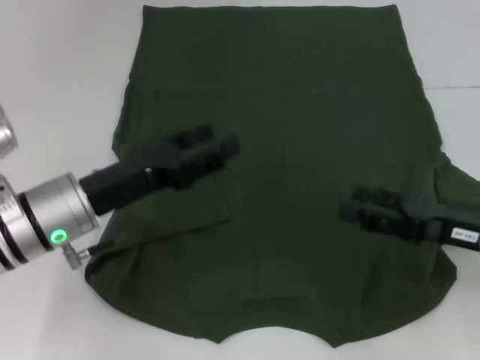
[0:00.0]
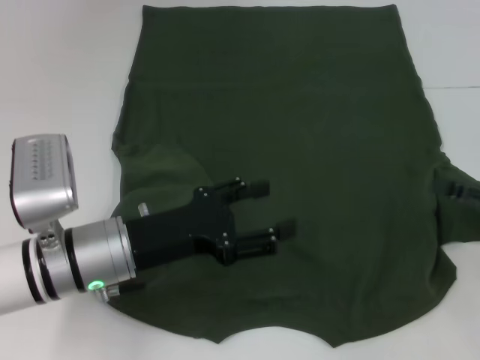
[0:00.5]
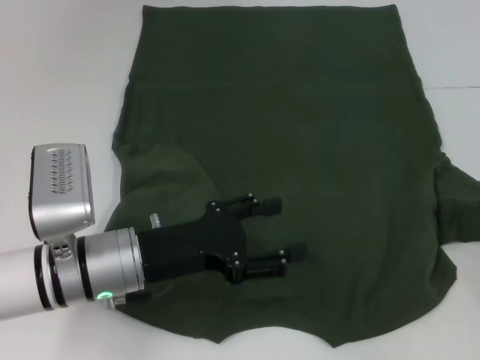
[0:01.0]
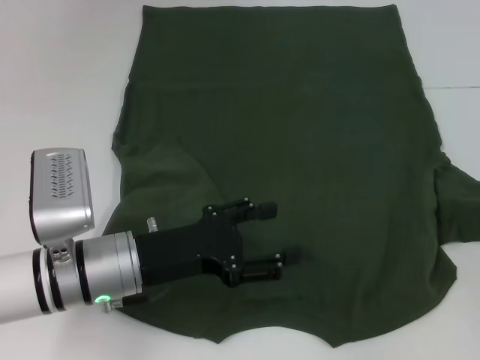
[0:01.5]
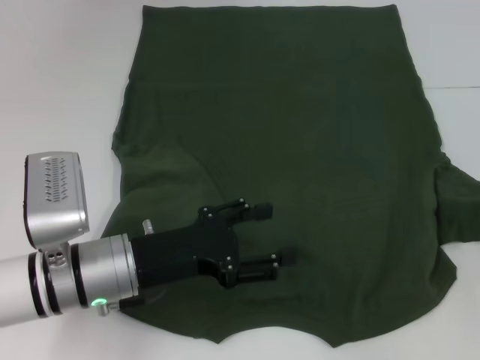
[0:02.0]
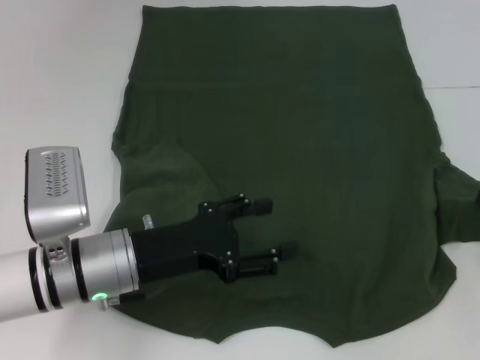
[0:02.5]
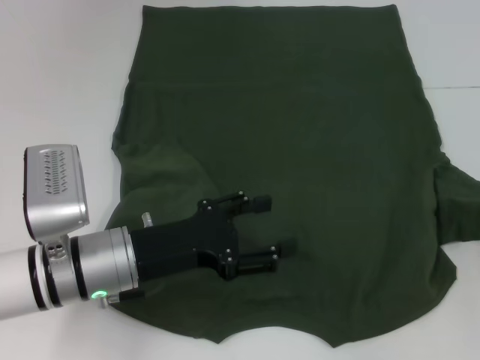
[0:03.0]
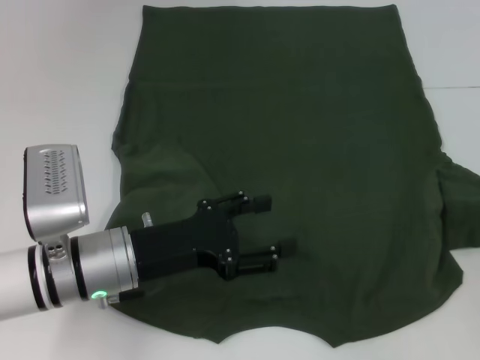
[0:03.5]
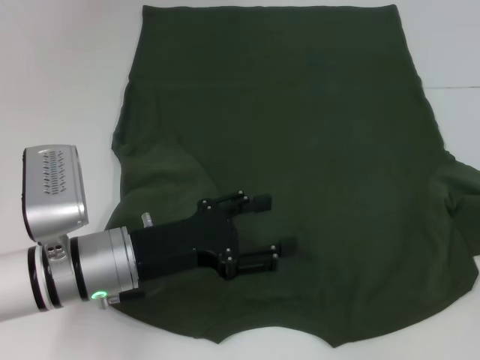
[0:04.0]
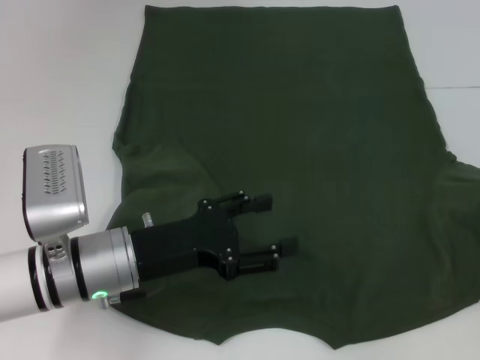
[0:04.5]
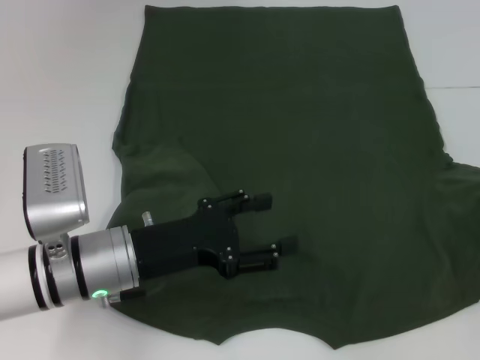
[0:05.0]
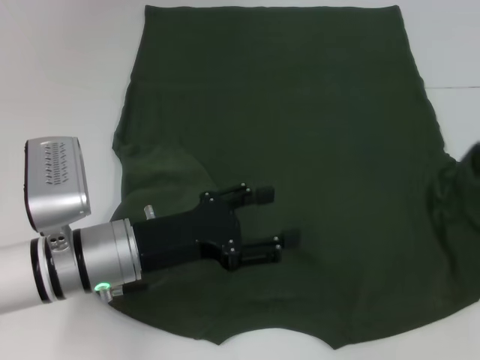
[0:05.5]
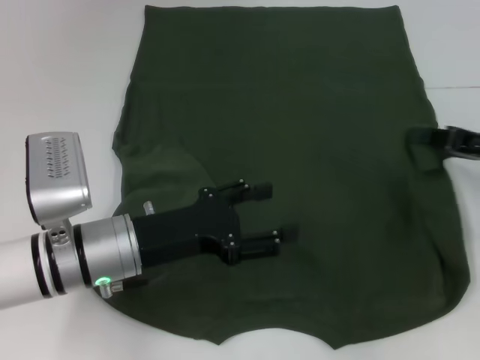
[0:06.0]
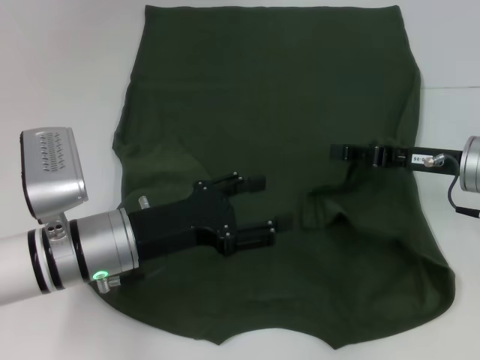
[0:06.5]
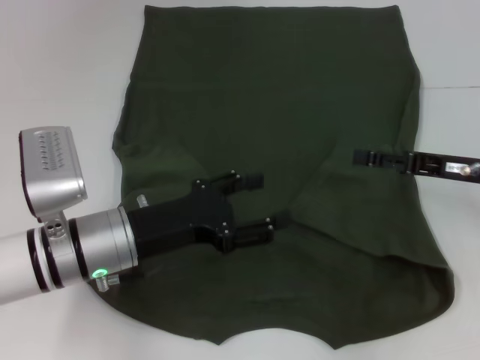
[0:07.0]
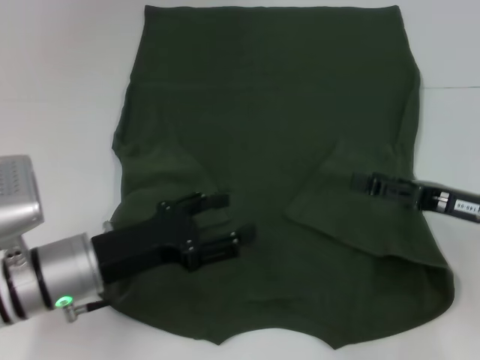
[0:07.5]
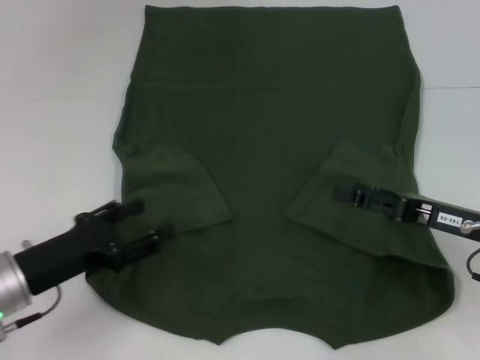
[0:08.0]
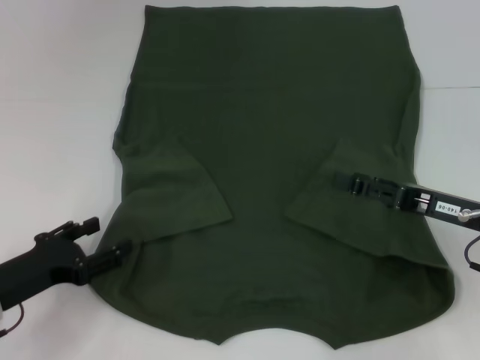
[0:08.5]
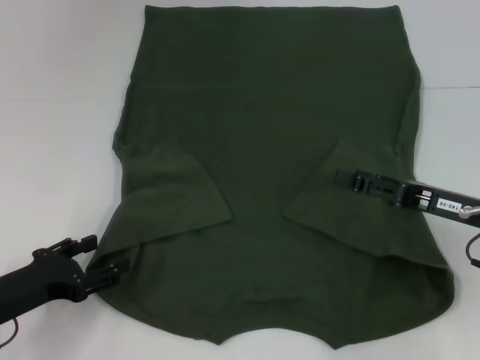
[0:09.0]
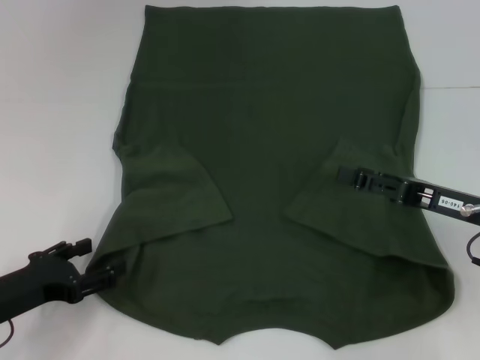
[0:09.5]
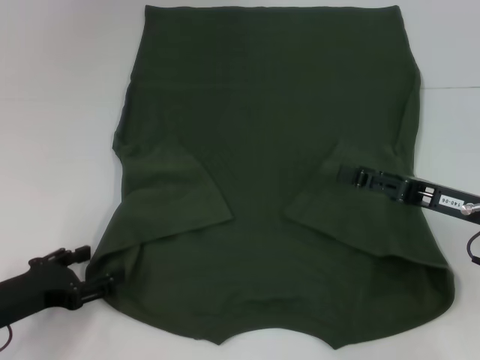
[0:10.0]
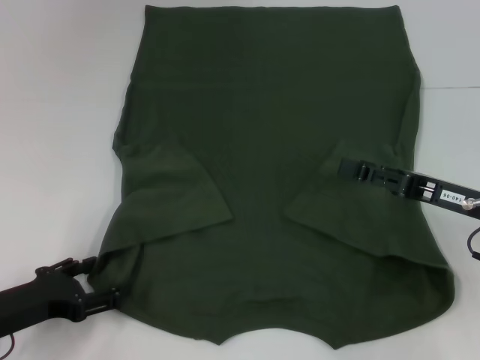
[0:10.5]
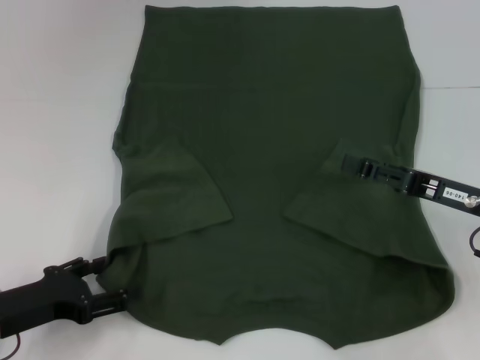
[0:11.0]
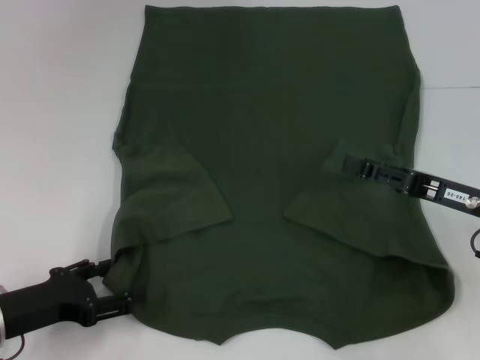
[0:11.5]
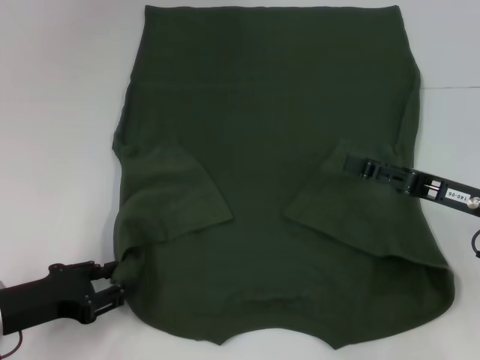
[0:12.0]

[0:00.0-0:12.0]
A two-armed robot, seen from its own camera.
Step, 0:00.0 to 0:06.5: Fold the bottom right sleeve with your right hand.
0:00.0 to 0:02.0: The right gripper shifts approximately 15 cm to the right. Meanwhile the left gripper changes place by roughly 5 cm.
0:02.0 to 0:04.0: The right gripper closes.
0:04.0 to 0:06.0: The right gripper shifts approximately 15 cm to the left and forward.
0:06.0 to 0:08.0: The left gripper travels to the left by approximately 10 cm. Meanwhile the right gripper moves backward, roughly 5 cm, and opens up.
0:08.0 to 0:12.0: There are only small adjustments of the grippers.

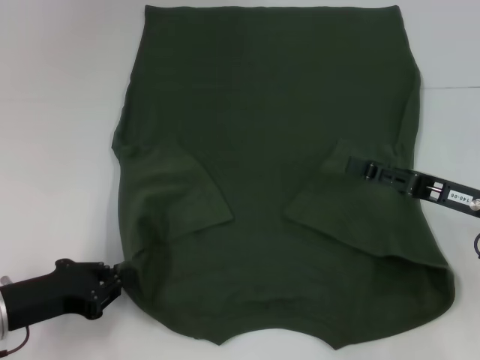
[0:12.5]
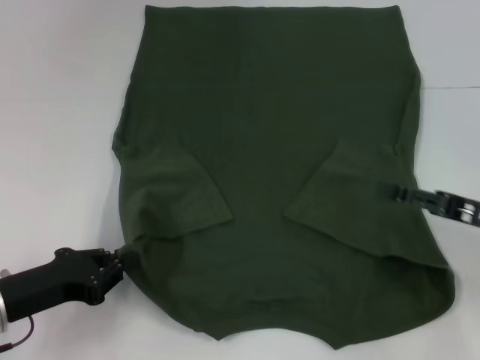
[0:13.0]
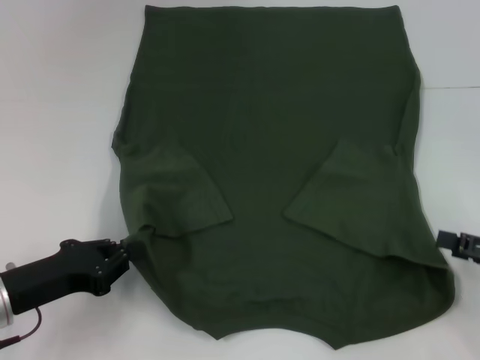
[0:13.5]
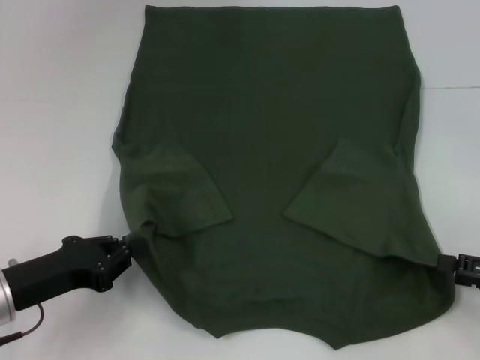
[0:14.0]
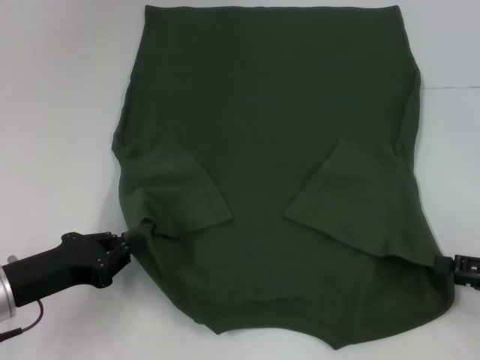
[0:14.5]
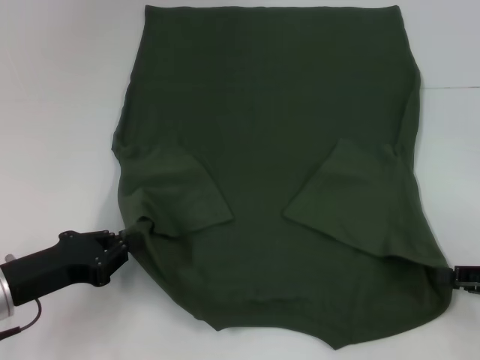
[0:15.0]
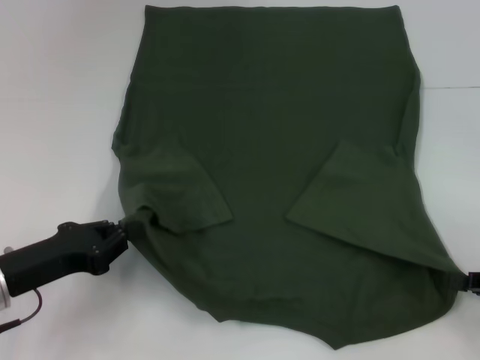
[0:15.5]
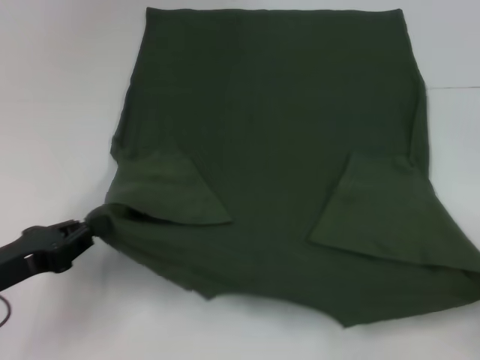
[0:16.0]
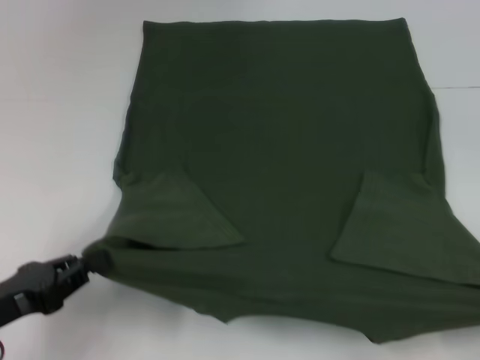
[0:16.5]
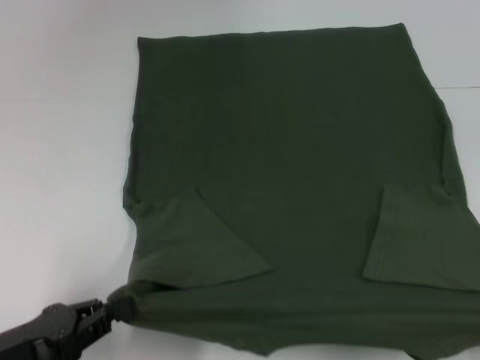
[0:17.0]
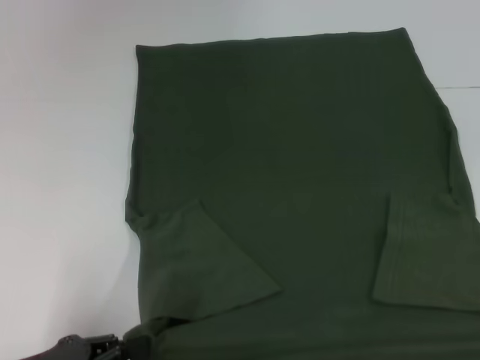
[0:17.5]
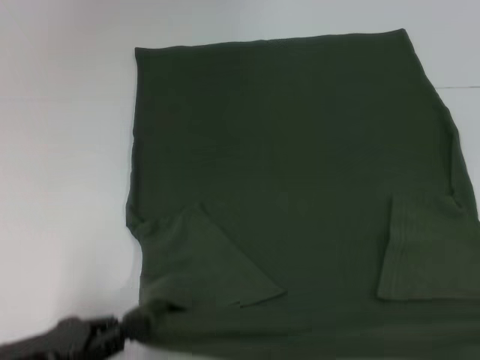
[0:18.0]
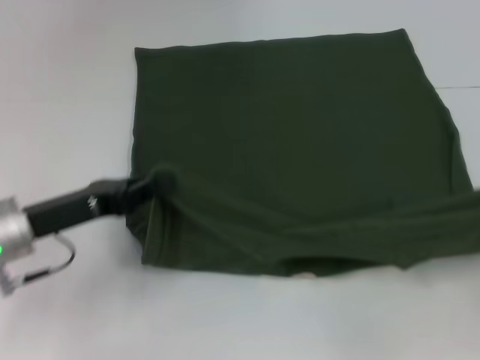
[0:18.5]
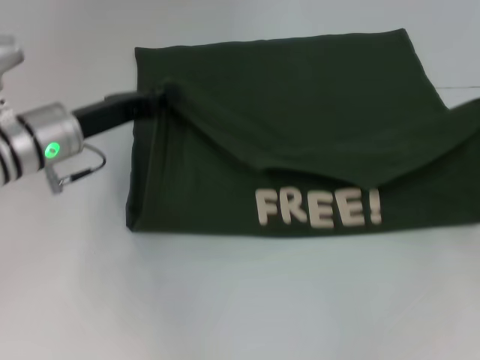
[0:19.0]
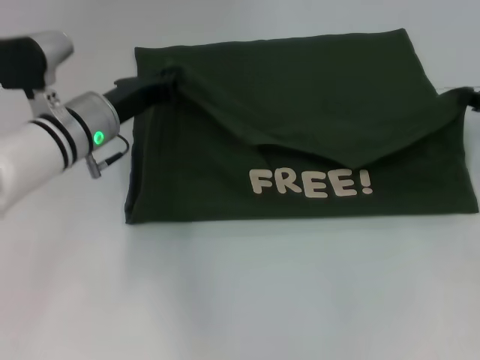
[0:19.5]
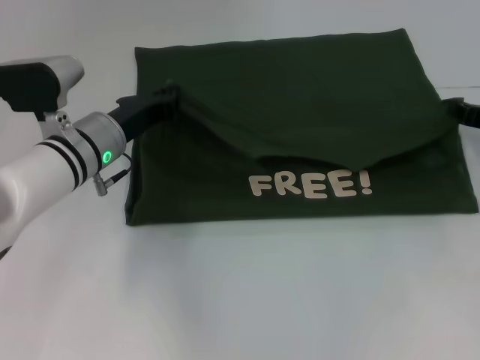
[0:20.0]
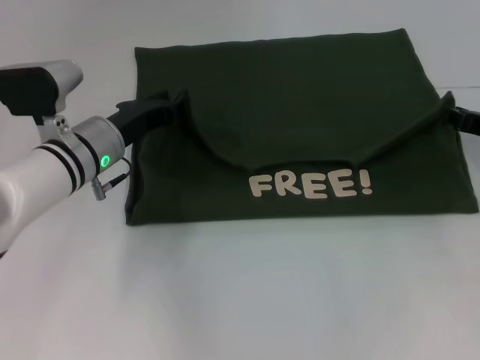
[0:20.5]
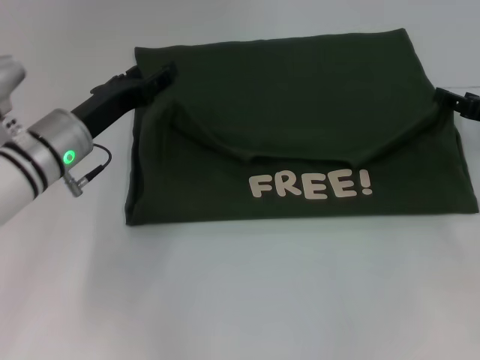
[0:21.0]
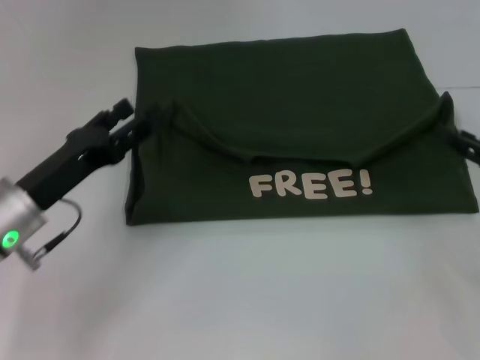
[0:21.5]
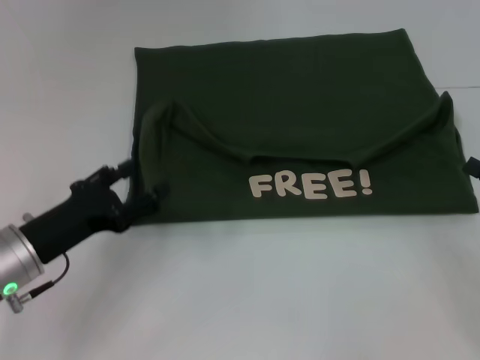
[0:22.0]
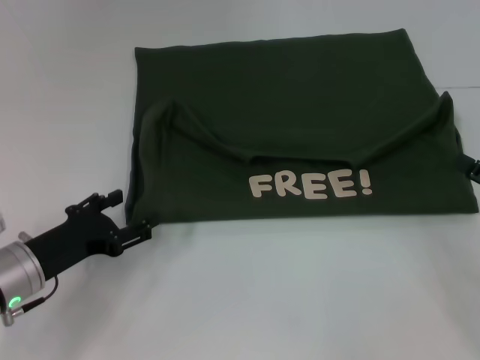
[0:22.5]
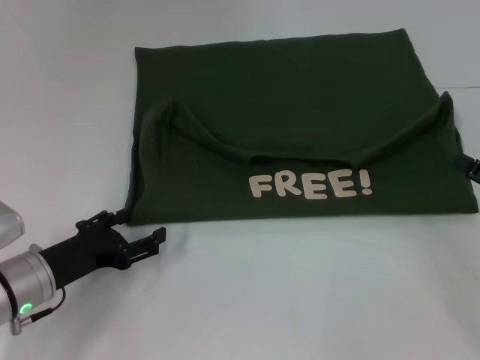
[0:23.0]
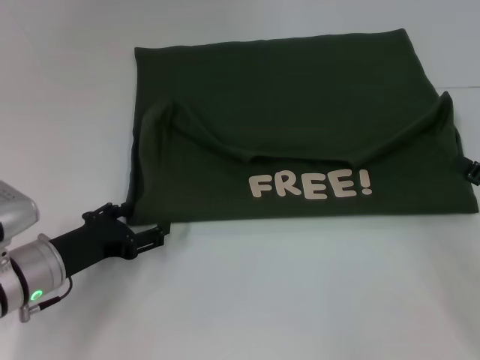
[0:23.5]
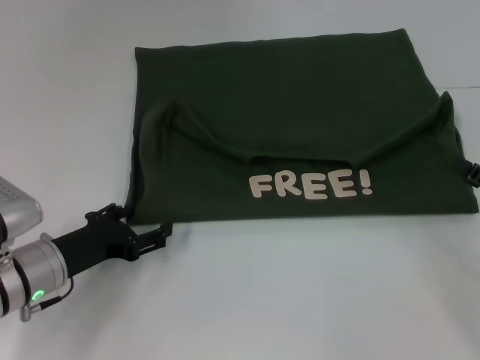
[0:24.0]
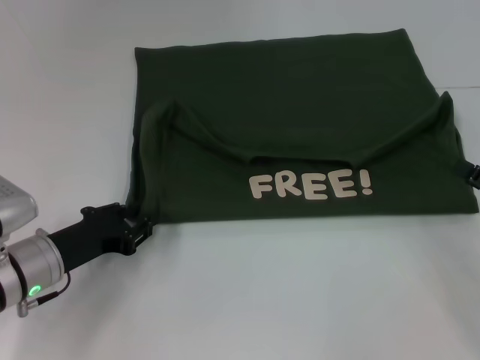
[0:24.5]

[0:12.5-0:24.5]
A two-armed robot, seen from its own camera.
Step, 0:12.5 to 0:15.0: Grab the bottom right corner with your right hand.
Step, 0:15.5 to 0:20.5: Fold the clothes with your left hand.
Step, 0:15.5 to 0:20.5: Fold the clothes with your right hand.
0:12.5 to 0:14.5: The right gripper heads to the right and backward, covering about 10 cm.
0:14.5 to 0:16.5: The right gripper shifts about 10 cm backward, and closes up, while the left gripper shifts by about 5 cm.
0:16.5 to 0:18.5: The right gripper travels forward and upward by about 10 cm. Meanwhile the left gripper shifts roughly 10 cm forward and to the right.
0:18.5 to 0:20.5: The right gripper goes approximately 20 cm forward and to the left, while the left gripper shifts approximately 15 cm forward and to the right.
0:20.5 to 0:22.5: The left gripper travels backward, to the left and downward by roughly 15 cm, and opens up. The right gripper is displaced backward by about 15 cm, and opens its fingers.
0:22.5 to 0:24.5: The grippers make only small movements.

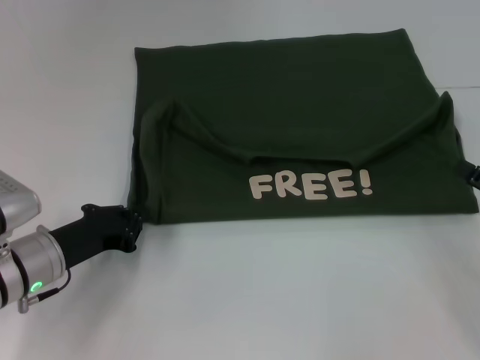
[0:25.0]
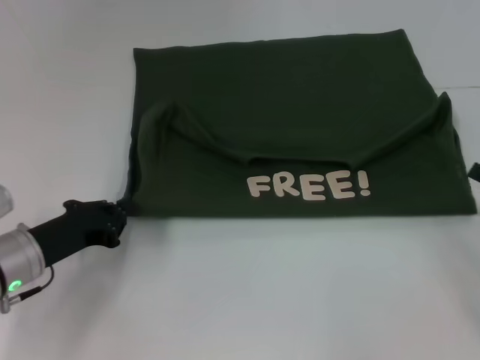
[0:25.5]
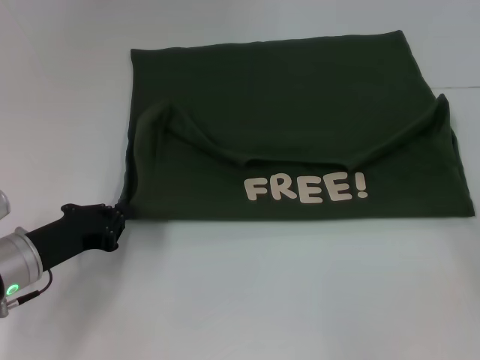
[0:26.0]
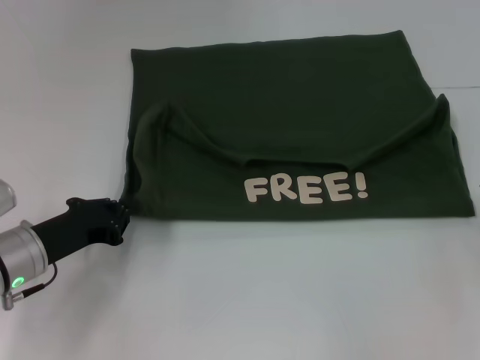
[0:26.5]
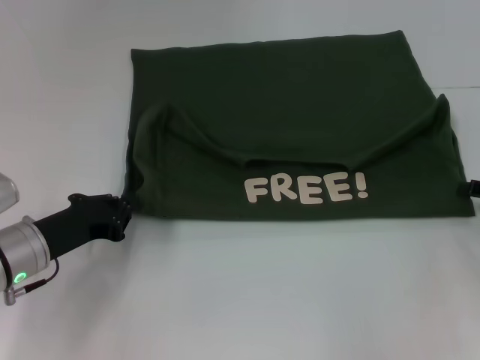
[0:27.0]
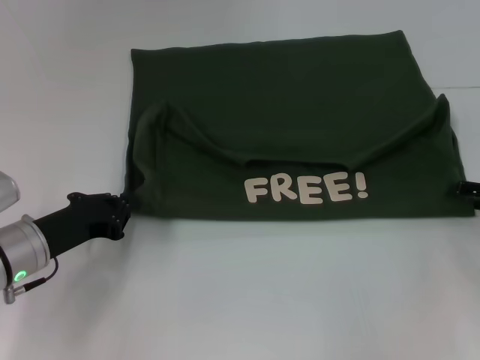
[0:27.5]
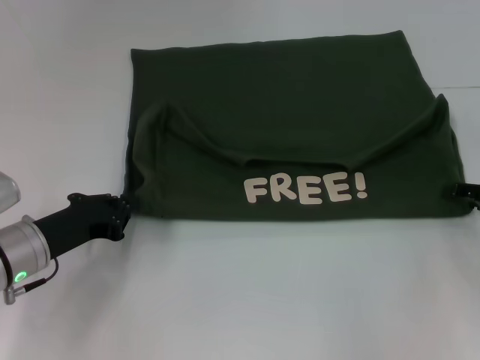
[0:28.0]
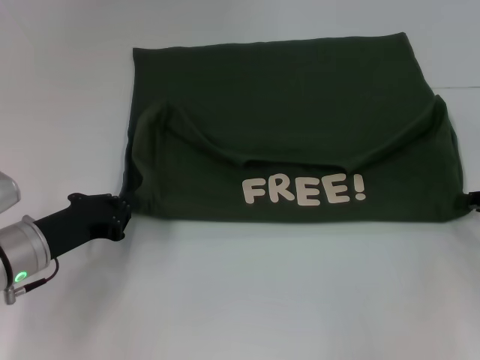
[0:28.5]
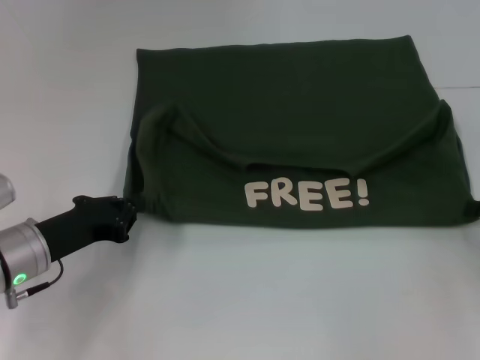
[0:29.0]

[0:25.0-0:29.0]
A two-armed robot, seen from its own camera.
0:25.0 to 0:27.0: The right gripper travels forward by approximately 5 cm.
0:27.0 to 0:29.0: The right gripper closes up.
